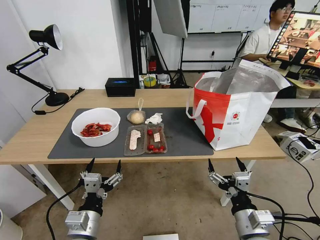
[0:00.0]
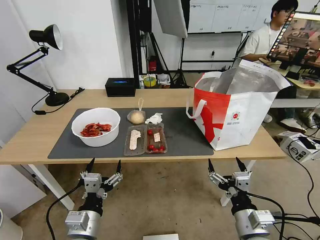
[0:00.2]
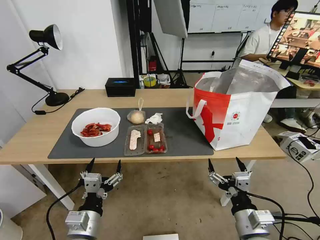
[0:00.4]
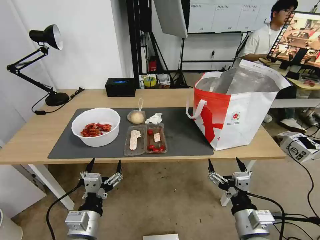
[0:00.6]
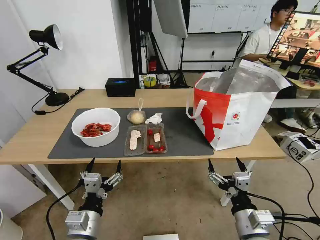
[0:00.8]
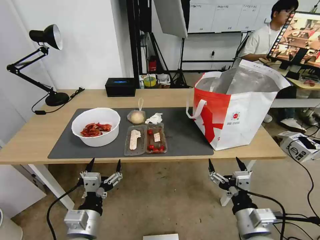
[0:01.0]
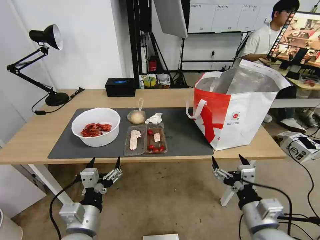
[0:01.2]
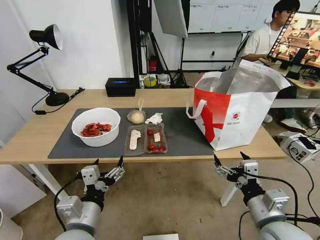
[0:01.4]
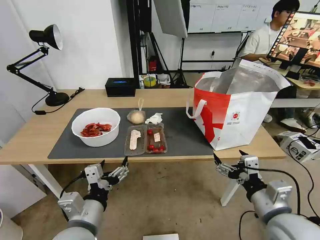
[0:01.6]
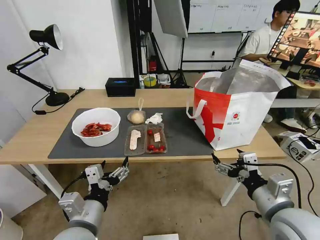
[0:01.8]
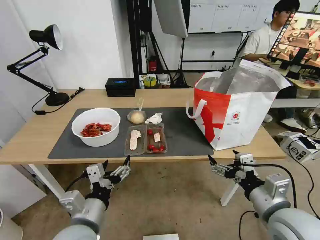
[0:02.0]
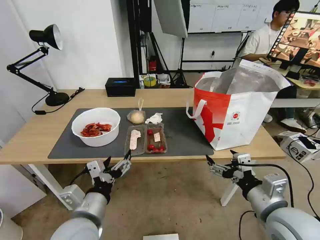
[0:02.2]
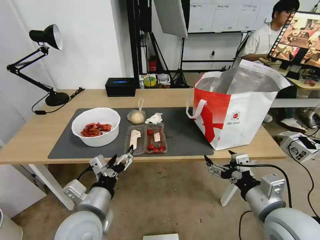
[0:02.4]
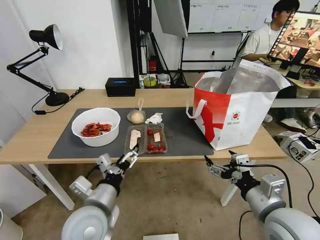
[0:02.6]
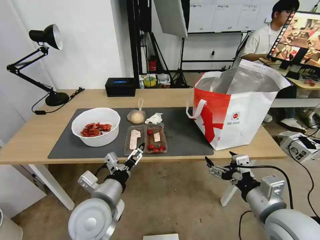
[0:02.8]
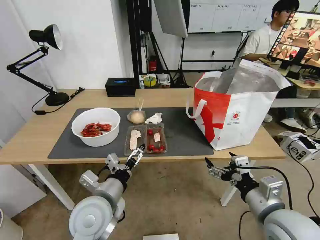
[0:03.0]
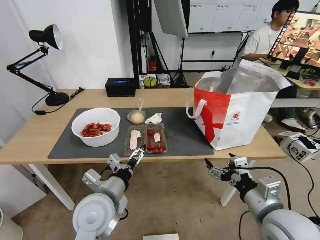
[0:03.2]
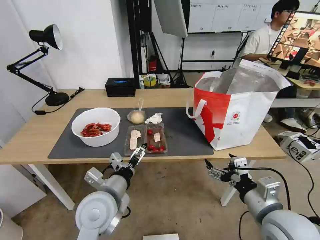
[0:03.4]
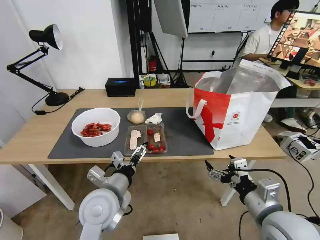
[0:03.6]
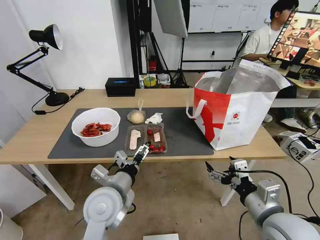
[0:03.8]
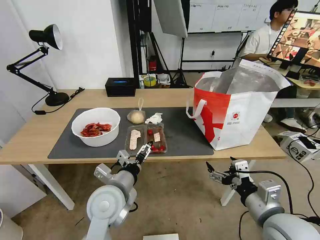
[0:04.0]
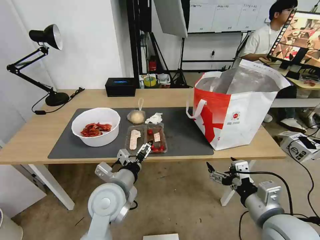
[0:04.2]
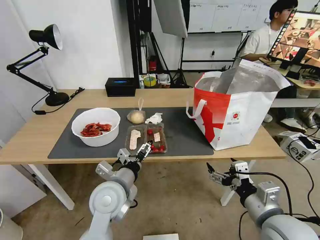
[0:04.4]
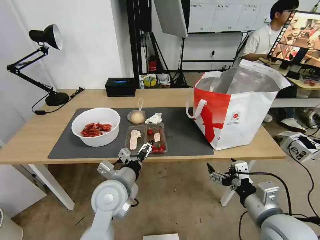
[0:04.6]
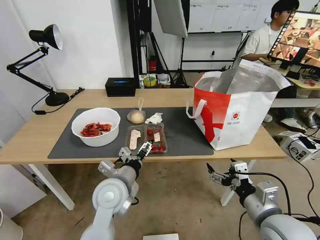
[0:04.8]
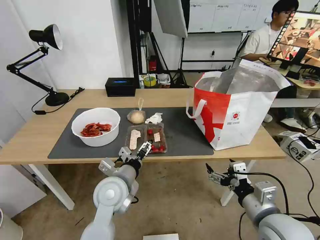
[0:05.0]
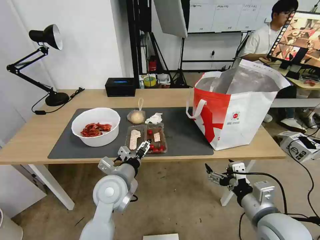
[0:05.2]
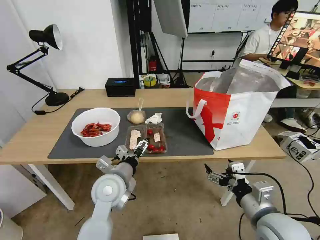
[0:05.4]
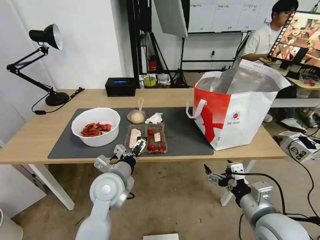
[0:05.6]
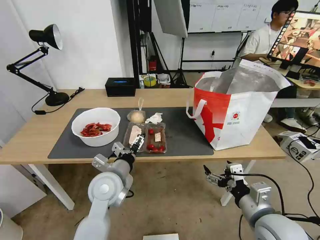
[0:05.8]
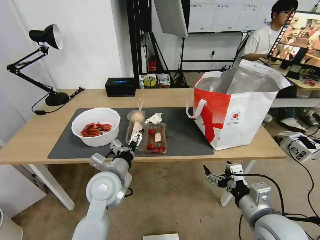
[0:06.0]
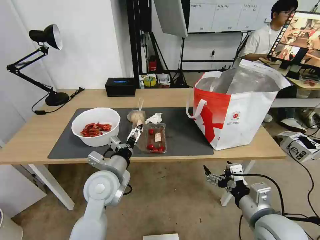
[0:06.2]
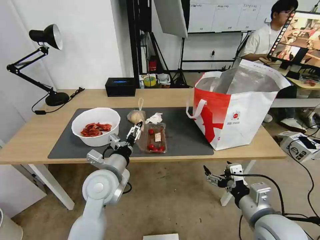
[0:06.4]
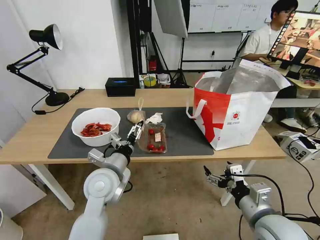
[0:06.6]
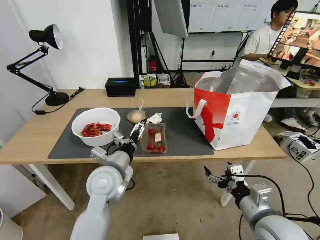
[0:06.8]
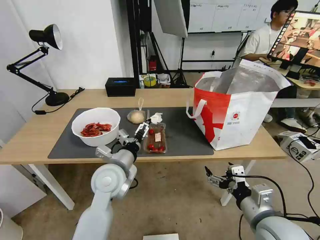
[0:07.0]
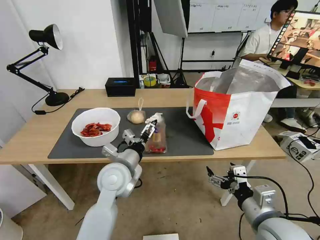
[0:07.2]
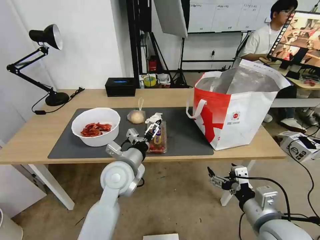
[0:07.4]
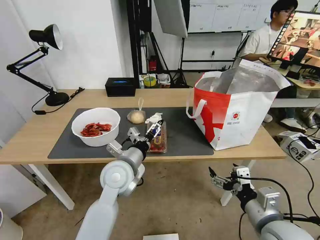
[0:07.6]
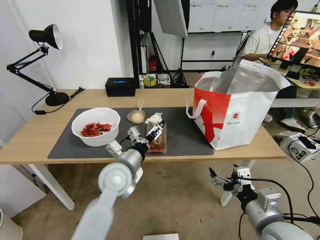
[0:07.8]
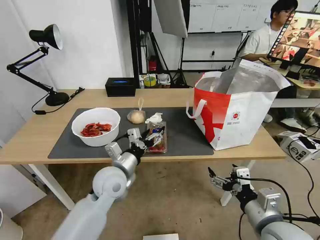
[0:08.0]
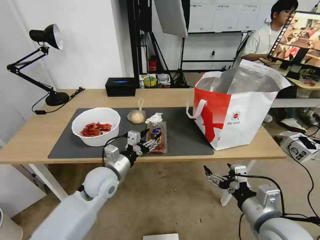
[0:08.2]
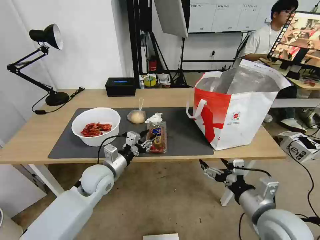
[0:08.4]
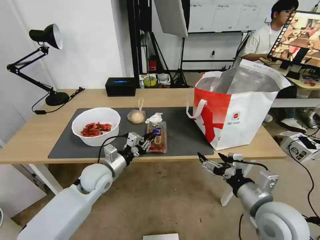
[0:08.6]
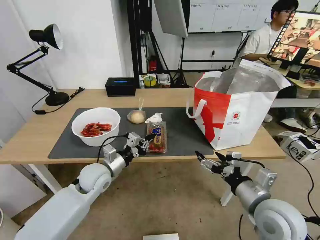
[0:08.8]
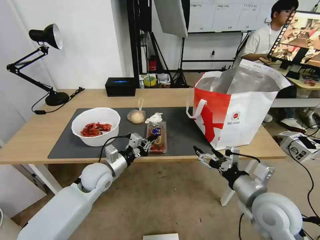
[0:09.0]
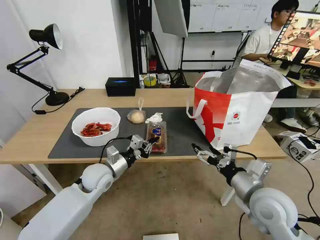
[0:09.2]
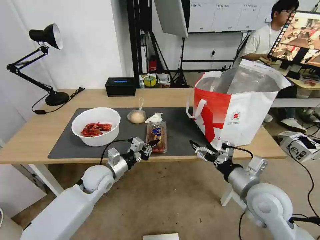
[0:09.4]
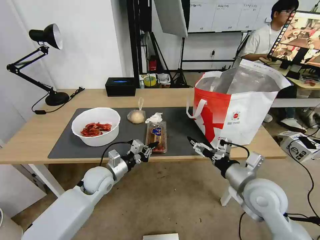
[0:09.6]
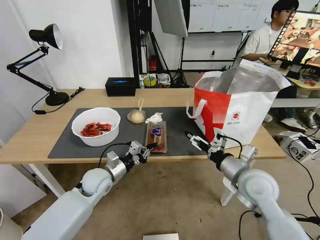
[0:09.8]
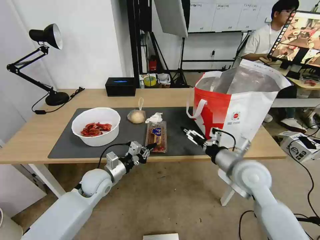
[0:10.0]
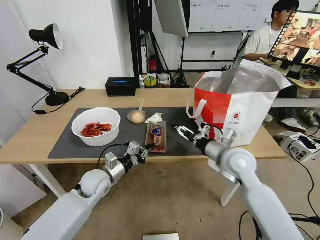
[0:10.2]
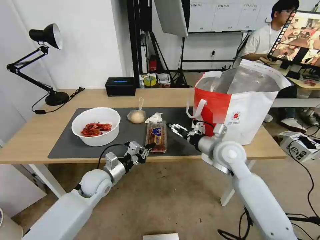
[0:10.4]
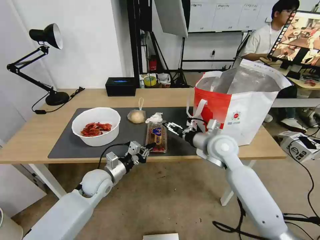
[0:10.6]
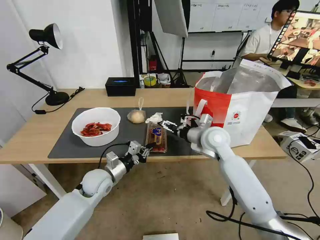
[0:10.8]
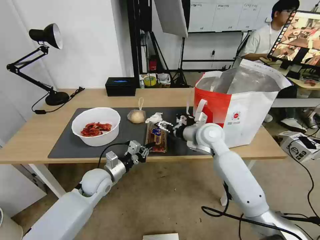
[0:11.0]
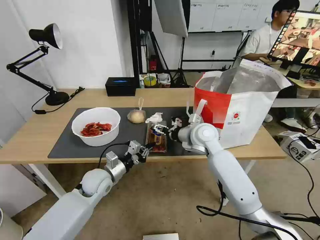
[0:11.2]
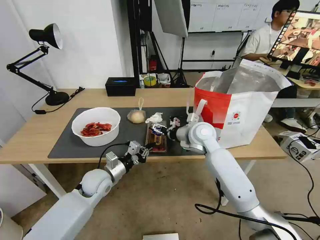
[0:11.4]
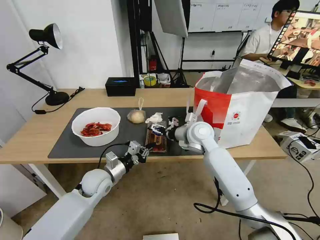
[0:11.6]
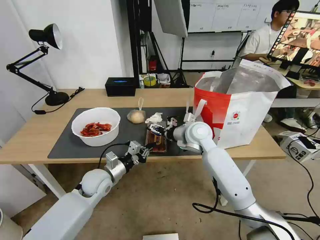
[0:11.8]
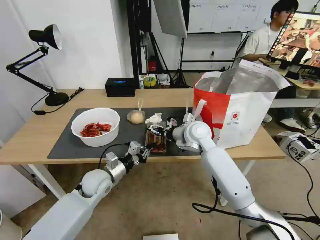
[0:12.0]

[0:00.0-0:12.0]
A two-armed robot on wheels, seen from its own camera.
Task of the whole recording: Pick up the trash from the table and place it into the takeout bag.
0:01.6 to 0:03.0: The left gripper travels forward by approximately 5 cm.
0:03.0 to 0:04.4: The left gripper moves some 5 cm.
0:04.4 to 0:07.6: There are only small adjustments of the grippers.
0:07.6 to 0:09.0: The right gripper is displaced forward by about 5 cm; the left gripper moves to the left and downward, approximately 10 cm, and closes its fingers.
0:09.0 to 0:10.4: The right gripper is displaced forward by some 15 cm.
0:10.4 to 0:12.0: The right gripper goes some 15 cm forward and to the left.

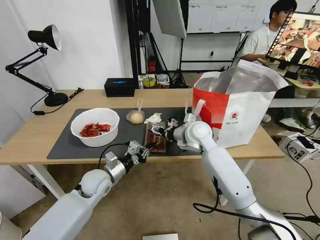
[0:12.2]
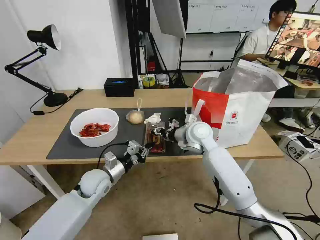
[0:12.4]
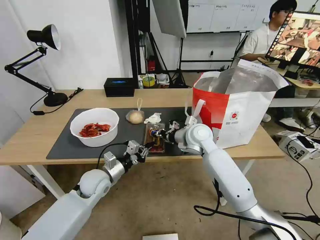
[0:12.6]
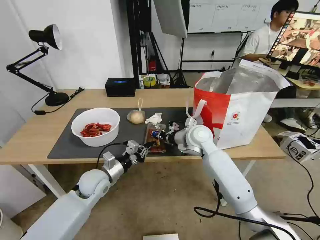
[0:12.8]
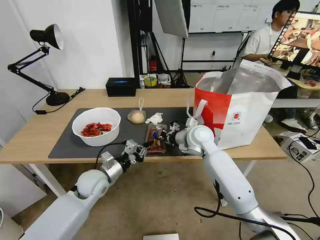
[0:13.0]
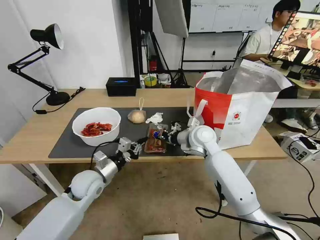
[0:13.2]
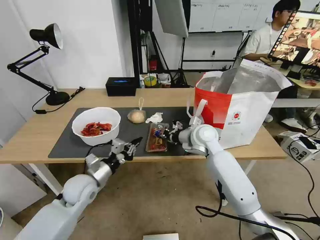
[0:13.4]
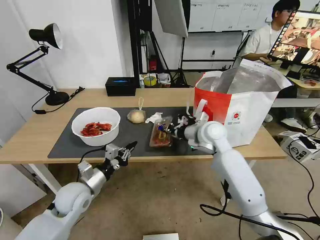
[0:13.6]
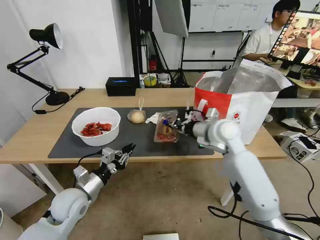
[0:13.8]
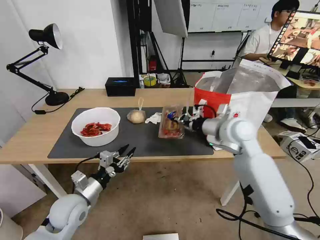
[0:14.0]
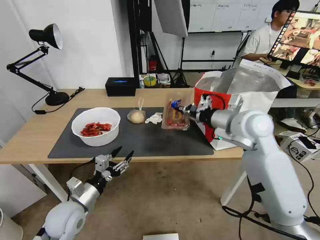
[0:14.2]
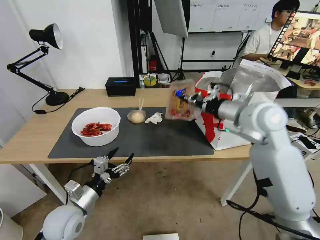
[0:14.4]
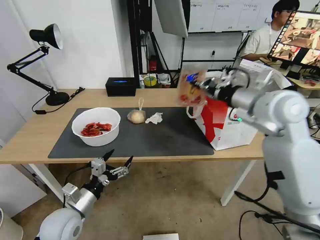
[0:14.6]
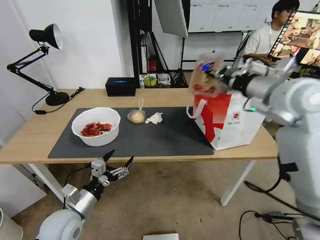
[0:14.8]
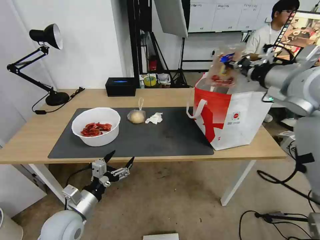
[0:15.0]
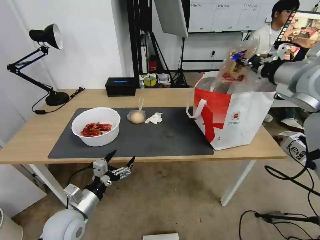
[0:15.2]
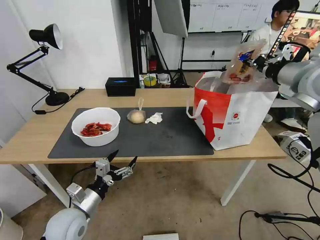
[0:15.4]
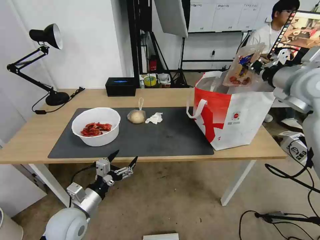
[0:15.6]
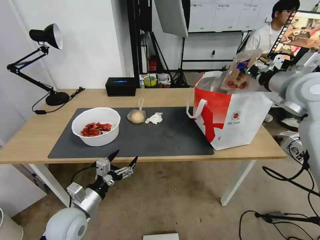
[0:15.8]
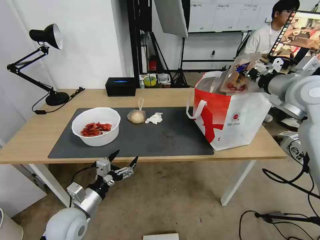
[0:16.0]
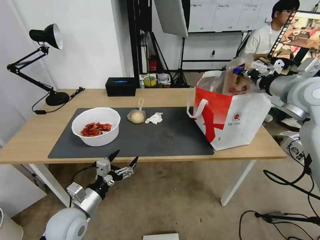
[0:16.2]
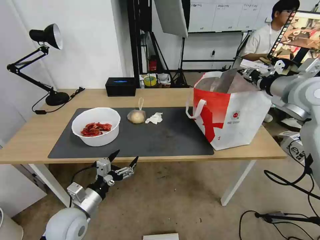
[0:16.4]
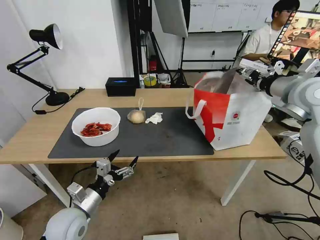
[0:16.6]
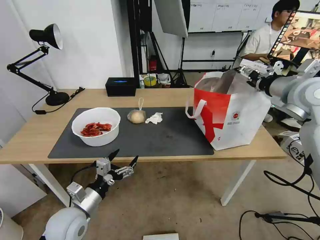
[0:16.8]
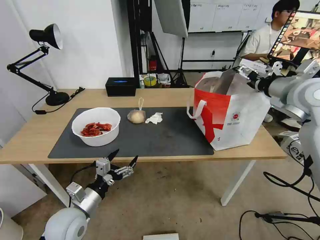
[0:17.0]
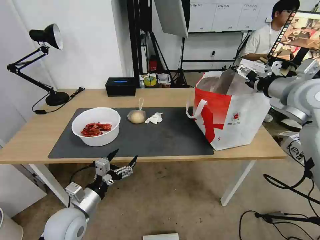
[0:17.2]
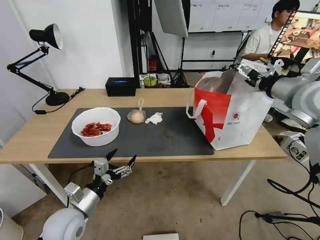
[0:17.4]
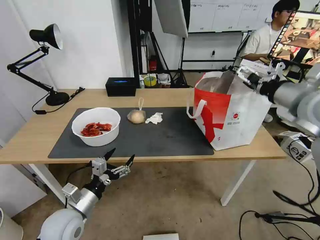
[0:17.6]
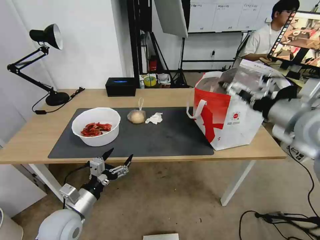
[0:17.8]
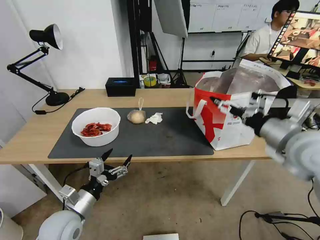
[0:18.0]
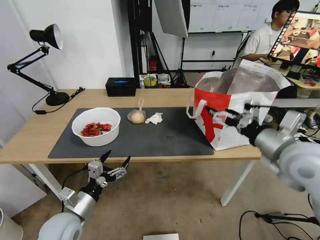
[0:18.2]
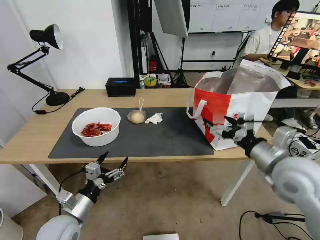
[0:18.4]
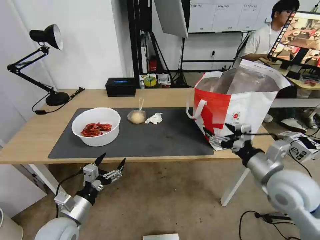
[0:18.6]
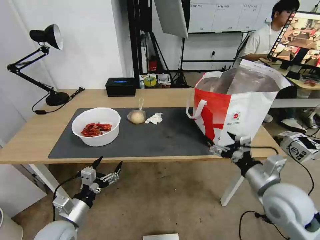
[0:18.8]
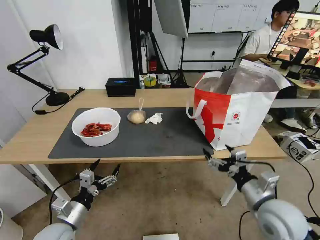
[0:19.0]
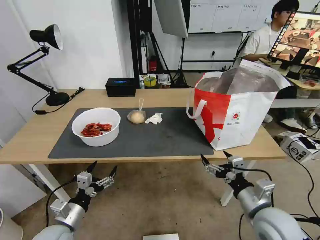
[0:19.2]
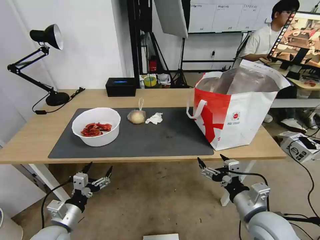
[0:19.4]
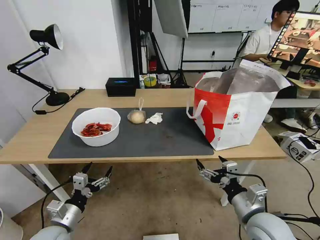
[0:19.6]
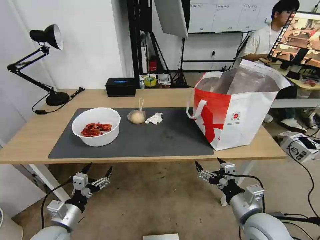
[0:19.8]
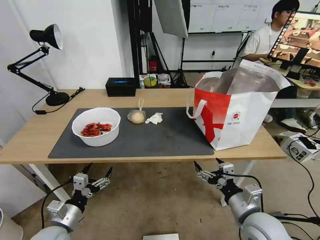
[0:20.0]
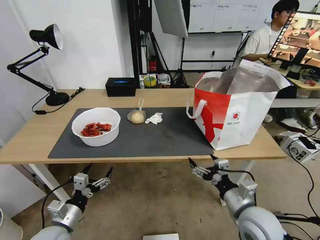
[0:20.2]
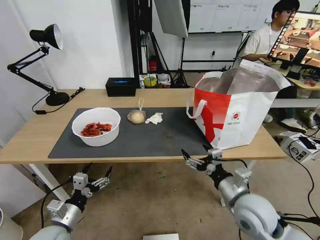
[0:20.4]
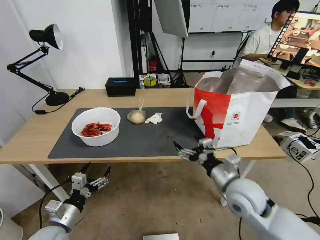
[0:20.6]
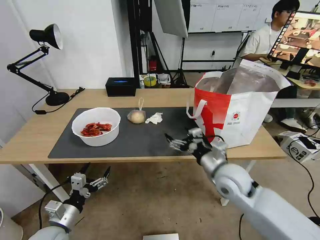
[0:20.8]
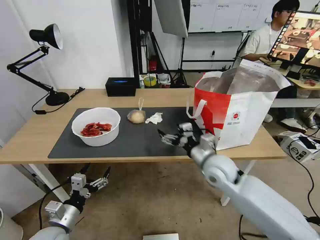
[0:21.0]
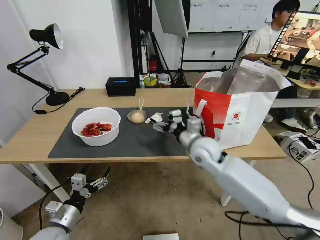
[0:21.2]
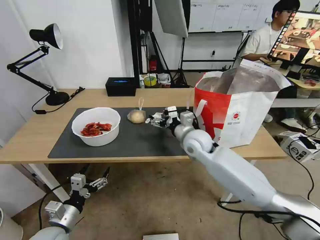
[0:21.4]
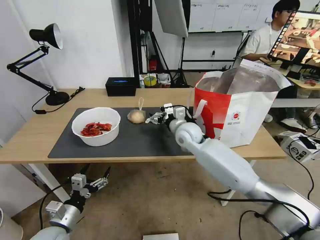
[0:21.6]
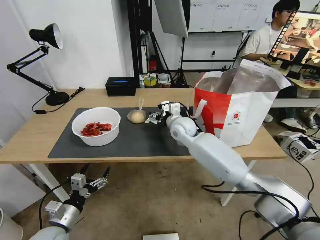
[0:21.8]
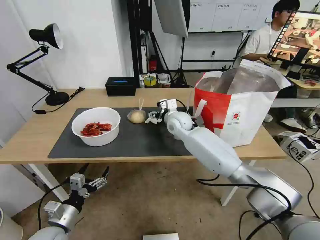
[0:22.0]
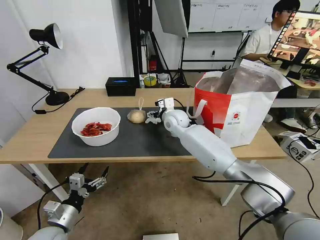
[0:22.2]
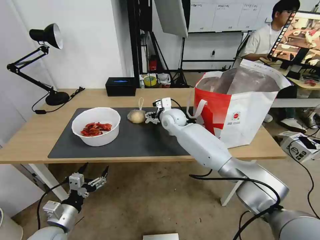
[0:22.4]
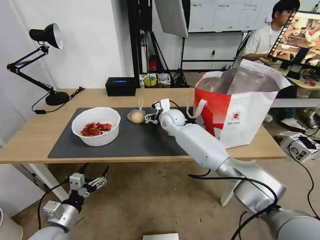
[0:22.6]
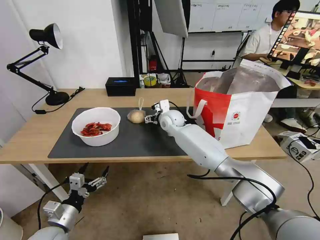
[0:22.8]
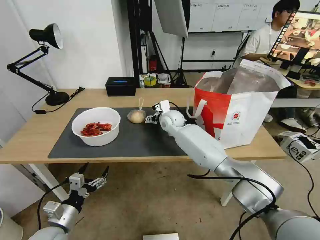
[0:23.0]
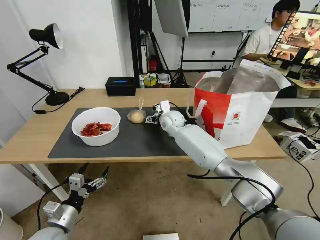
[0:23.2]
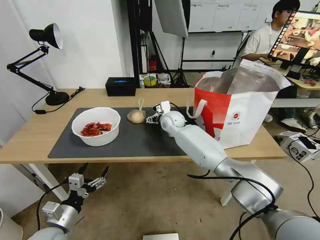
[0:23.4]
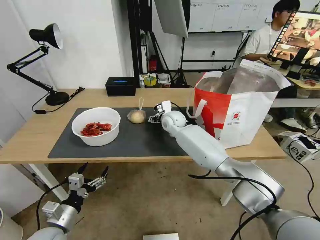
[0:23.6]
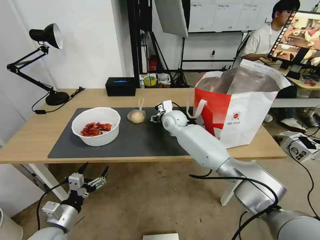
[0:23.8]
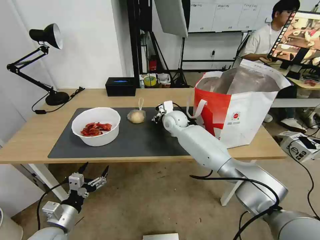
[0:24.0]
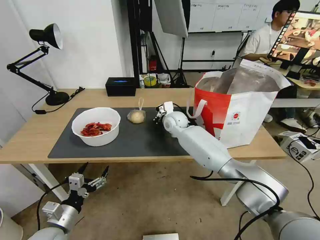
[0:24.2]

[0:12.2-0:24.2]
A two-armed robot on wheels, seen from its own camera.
Task of the whole recording: Pick up the trash from the table and place it into the takeout bag.
0:12.2 to 0:13.8: The left gripper moves backward and to the left, roughly 10 cm. The right gripper goes approximately 5 cm to the right, and closes its fingers.
0:13.8 to 0:15.2: The right gripper travels upward and to the right by about 25 cm; the left gripper goes about 5 cm backward, and opens its fingers.
0:15.2 to 0:16.6: The right gripper shifts by approximately 5 cm, and opens.
0:16.6 to 0:18.2: The right gripper shifts some 20 cm backward, downward and to the left, and opens its fingers.
0:18.2 to 0:19.8: The right gripper moves downward and backward, approximately 20 cm, while the left gripper changes place by about 5 cm.
0:19.8 to 0:21.2: The right gripper is displaced forward and to the left by about 25 cm.
0:21.2 to 0:22.6: The right gripper travels forward and to the left by approximately 20 cm.
0:22.6 to 0:24.2: The right gripper closes up.
